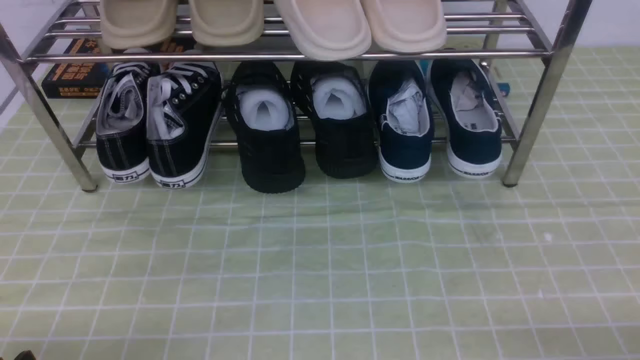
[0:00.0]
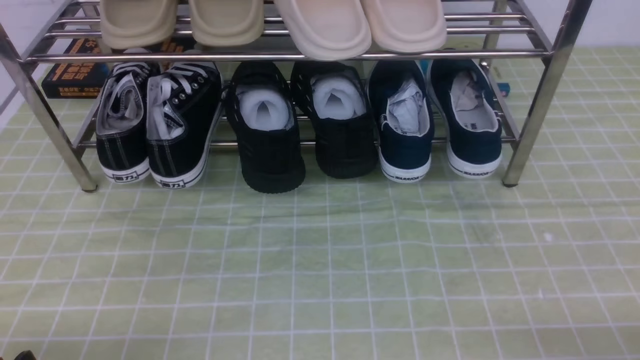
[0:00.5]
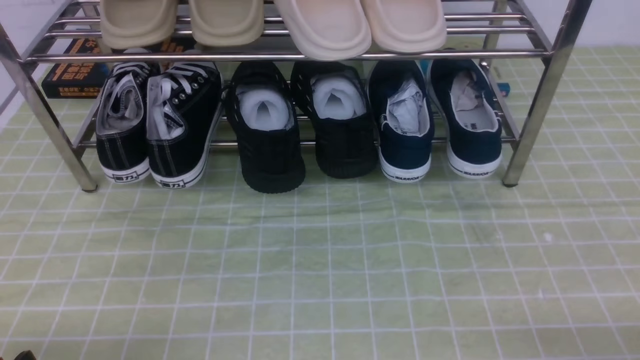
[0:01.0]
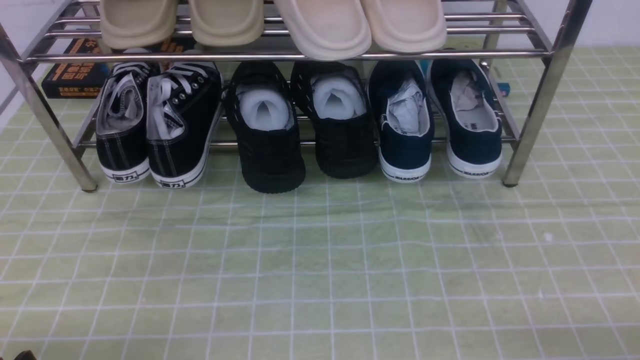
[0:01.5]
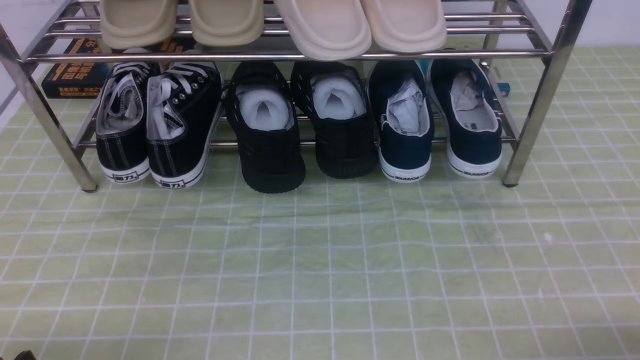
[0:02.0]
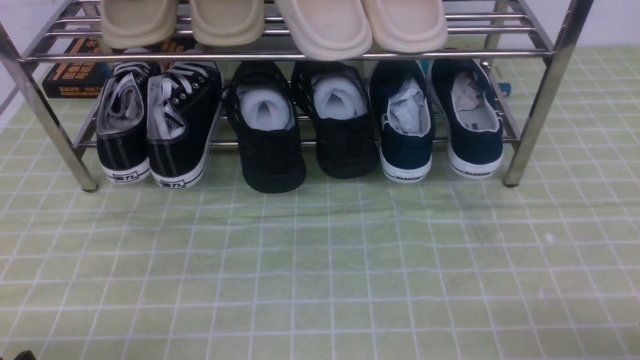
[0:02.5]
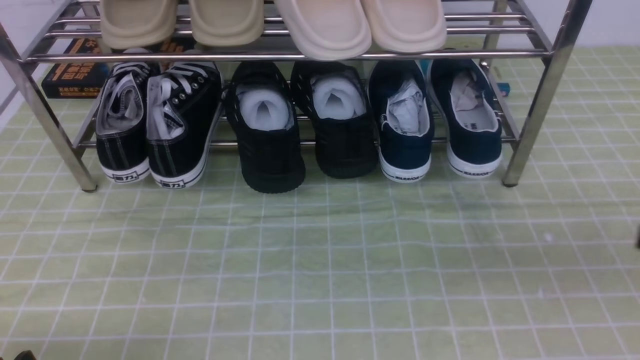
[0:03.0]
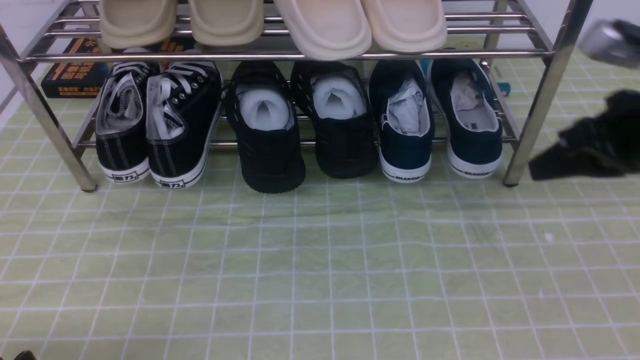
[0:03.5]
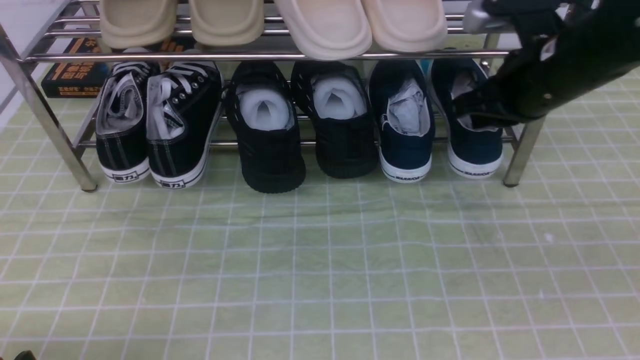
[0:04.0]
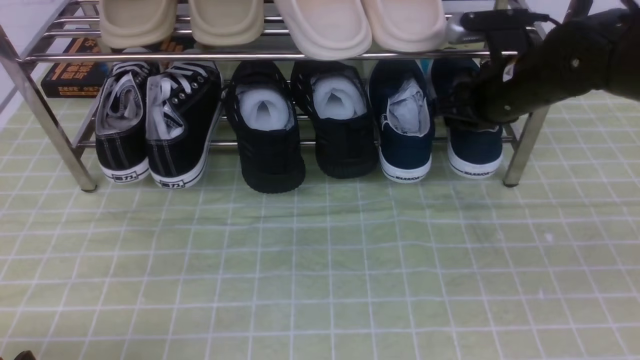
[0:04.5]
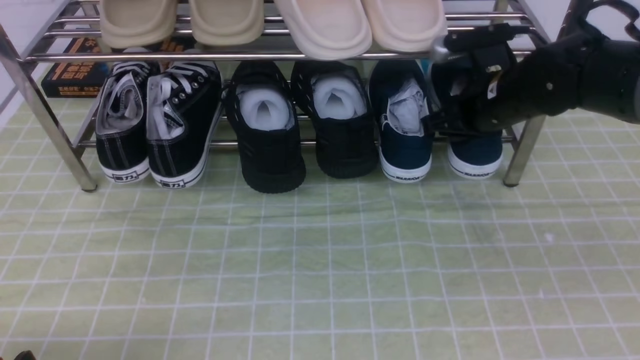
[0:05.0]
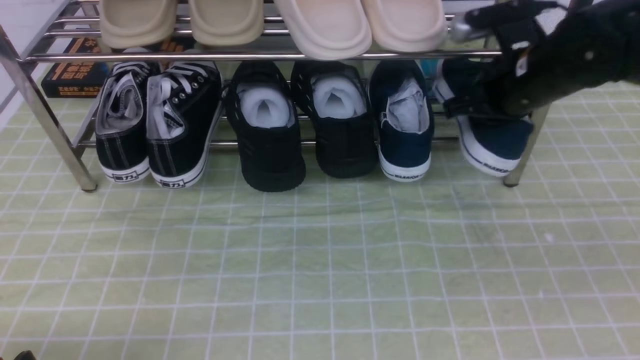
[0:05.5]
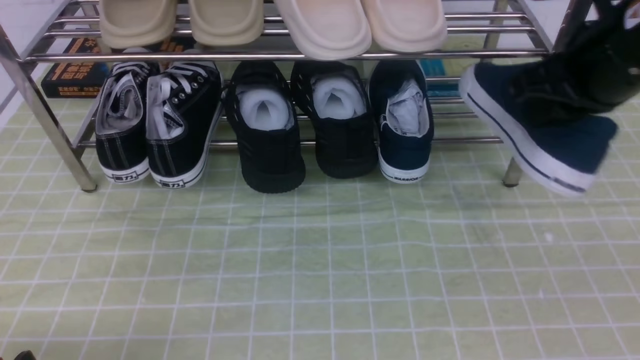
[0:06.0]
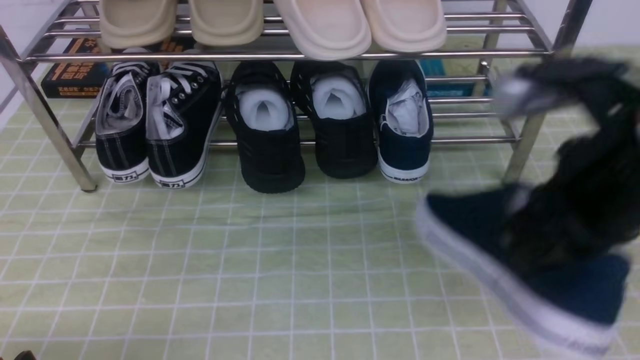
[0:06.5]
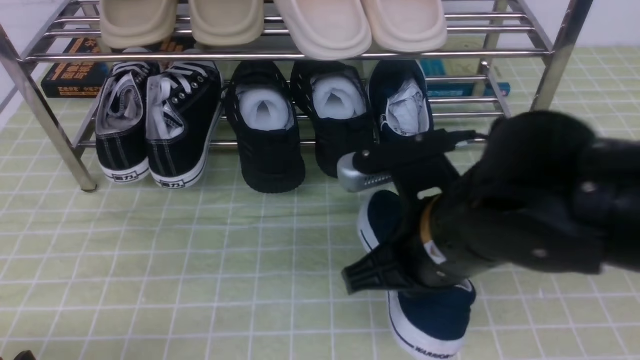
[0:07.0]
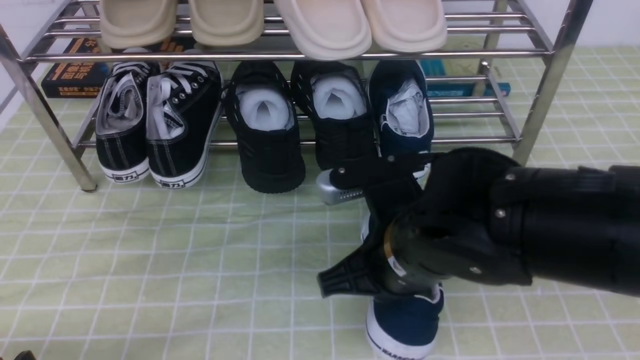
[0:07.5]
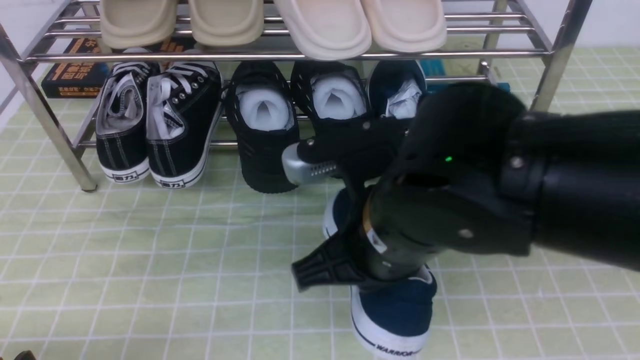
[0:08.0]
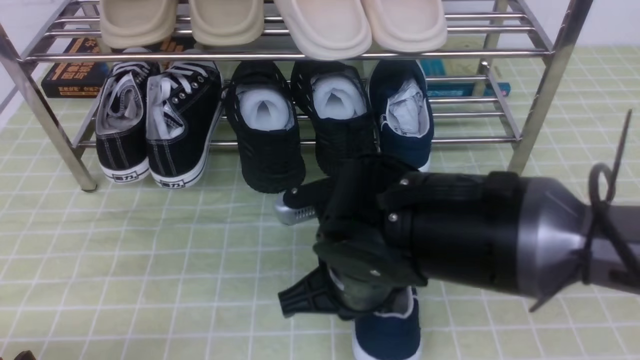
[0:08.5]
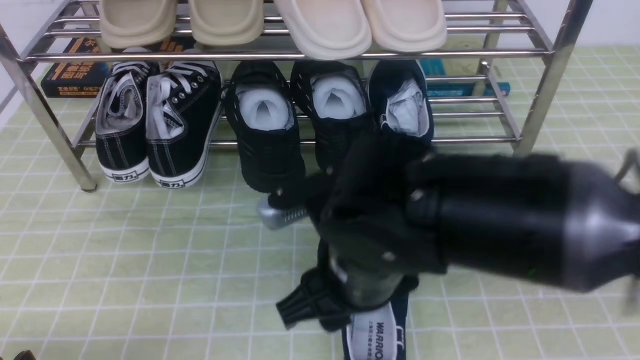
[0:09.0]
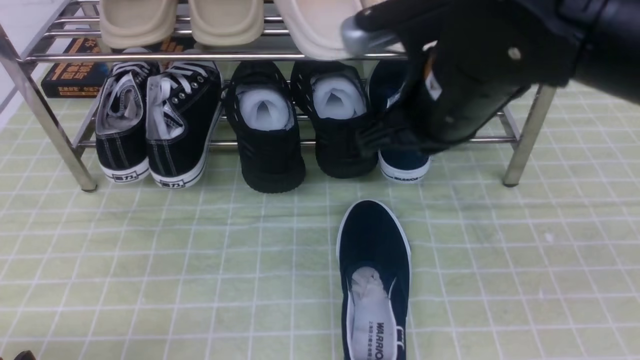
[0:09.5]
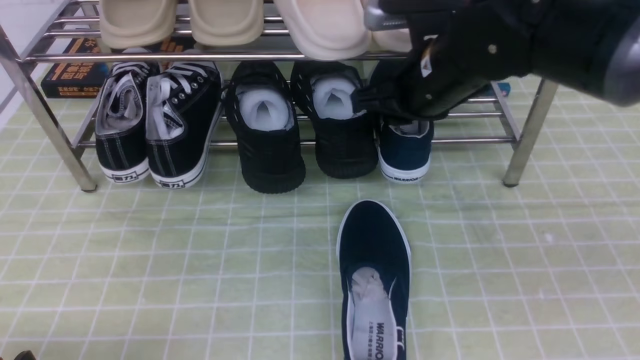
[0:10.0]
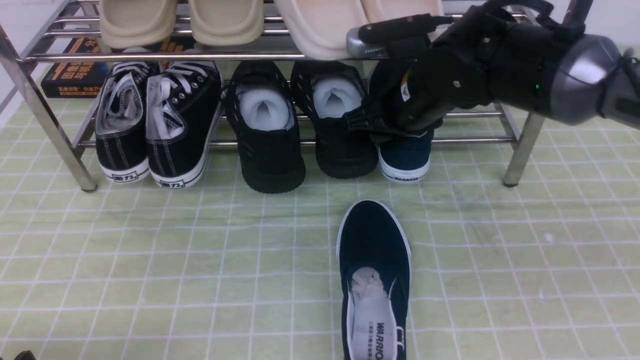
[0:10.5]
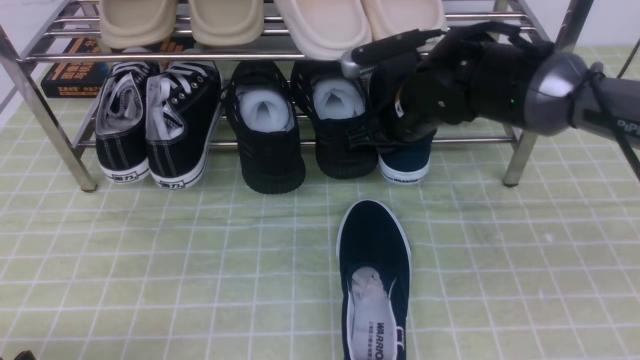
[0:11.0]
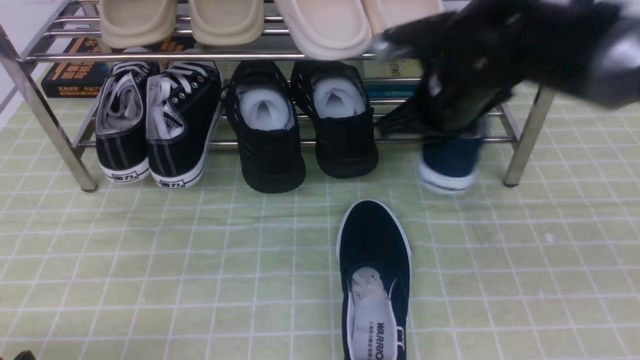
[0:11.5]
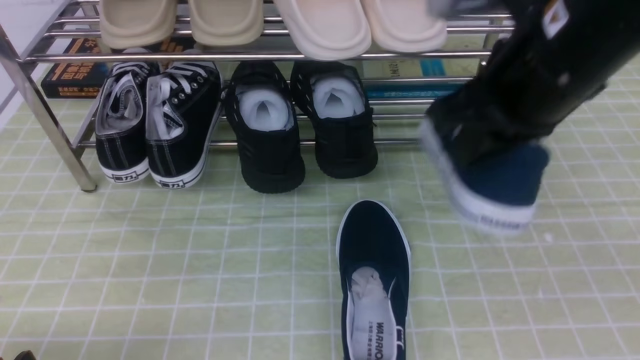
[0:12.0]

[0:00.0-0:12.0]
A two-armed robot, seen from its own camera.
Step, 0:00.0 to 0:05.0: use the right arm to clamp a shoe on the right side of the shoe rack.
Step, 0:05.5 to 0:08.5: use the right arm to take out the clamped shoe from the shoe rack and put it down.
Step, 0:09.0 to 0:11.0: use the right arm to clamp a shoe on the right side of the shoe rack.
0:02.0 to 0:04.0: The right gripper goes some 35 cm forward and upward, and closes.
0:04.0 to 0:06.0: The right gripper shifts some 10 cm backward and upward, and opens and closes again.
0:06.0 to 0:08.0: The right gripper is displaced to the left, downward and backward by roughly 20 cm.
0:08.0 to 0:10.0: The right gripper shifts some 15 cm forward, and opens.
0:10.0 to 0:12.0: The right gripper travels backward and upward by roughly 15 cm, and closes up.

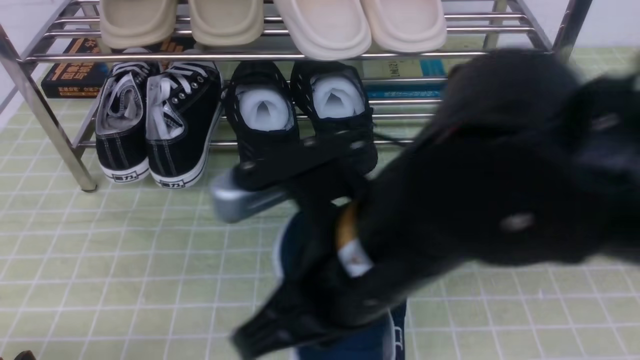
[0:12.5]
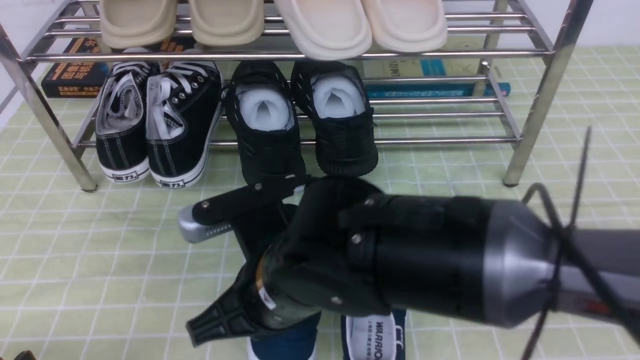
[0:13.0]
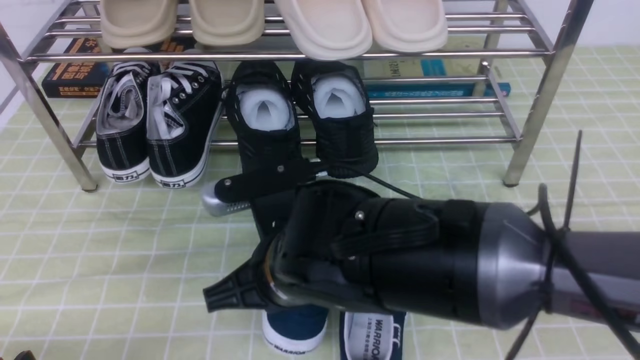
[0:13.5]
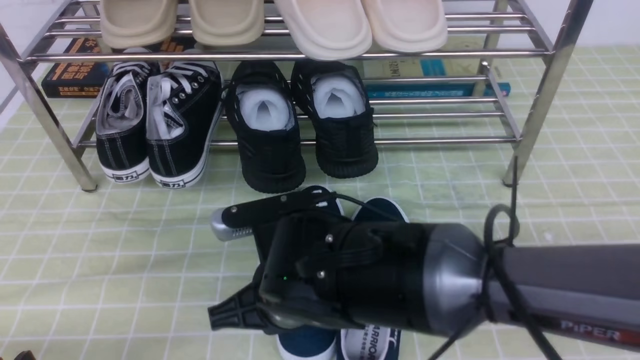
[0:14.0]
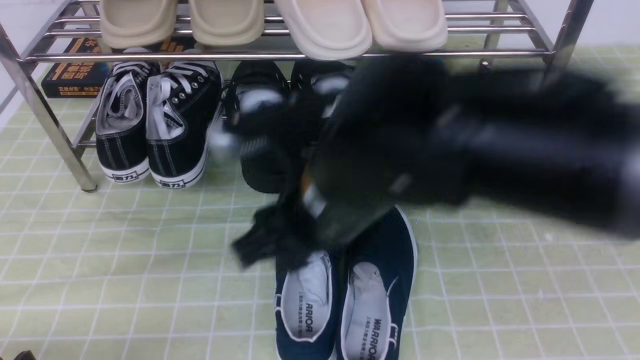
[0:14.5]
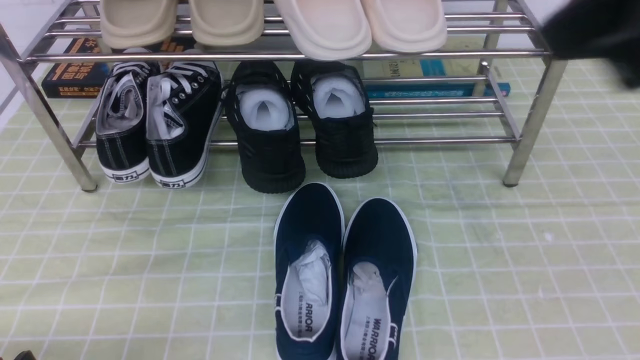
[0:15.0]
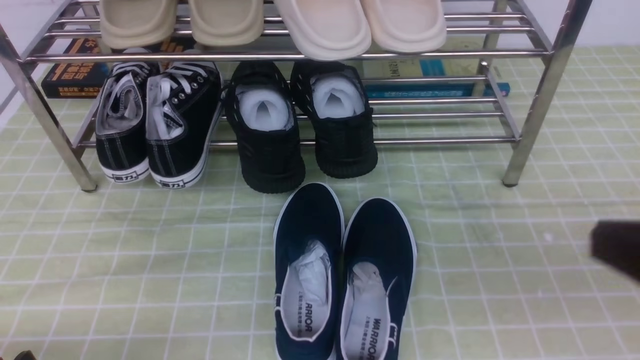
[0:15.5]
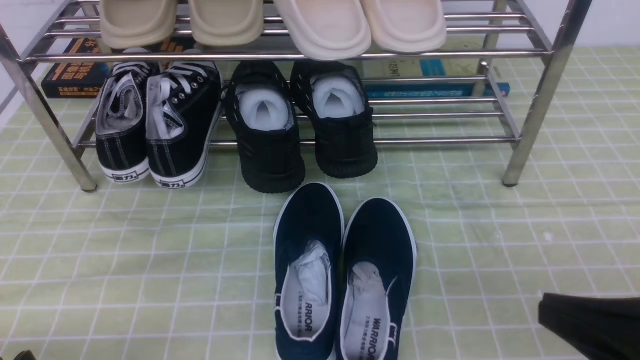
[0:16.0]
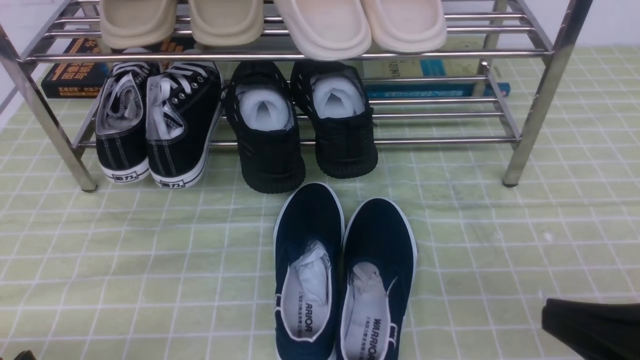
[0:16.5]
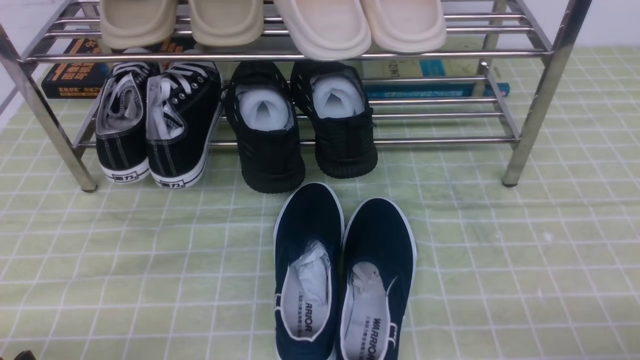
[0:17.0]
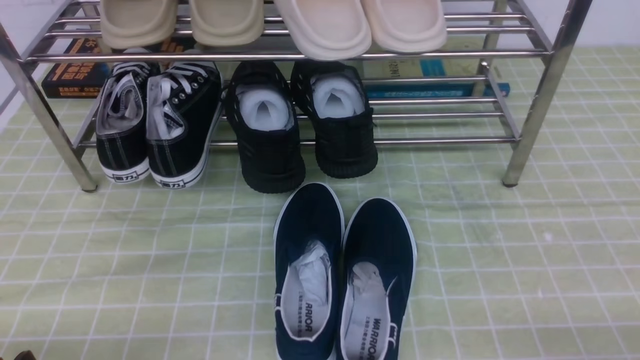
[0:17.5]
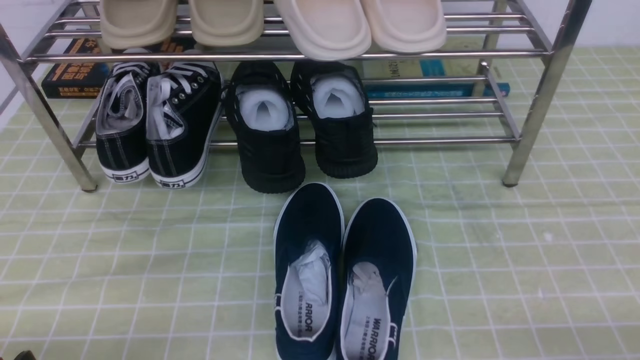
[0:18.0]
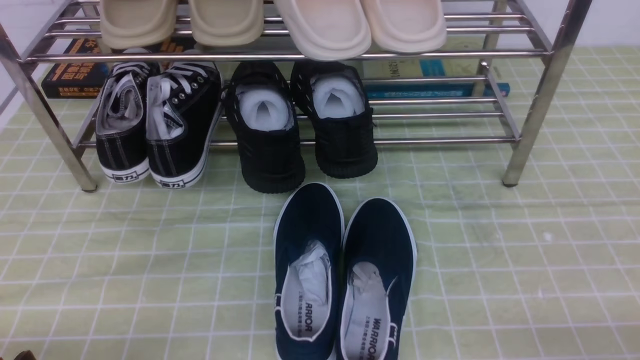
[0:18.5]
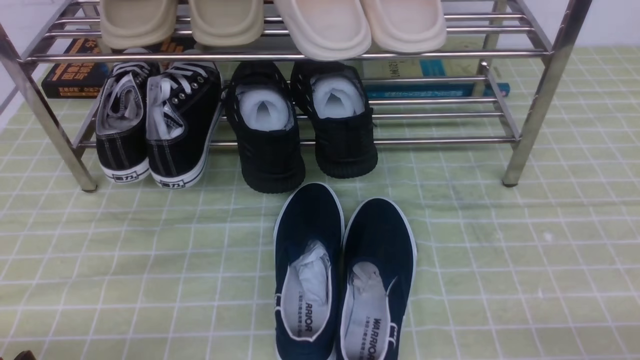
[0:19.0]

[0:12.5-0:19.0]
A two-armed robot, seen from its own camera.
Step, 0:12.5 to 0:14.5: use the right arm to take out the clamped shoe from the shoe rack and put it down.
0:12.5 to 0:14.5: The right gripper travels downward and back again, roughly 10 cm each way, and opens.
0:14.5 to 0:17.0: The right gripper heads to the right, downward and backward, covering approximately 35 cm, and closes up.

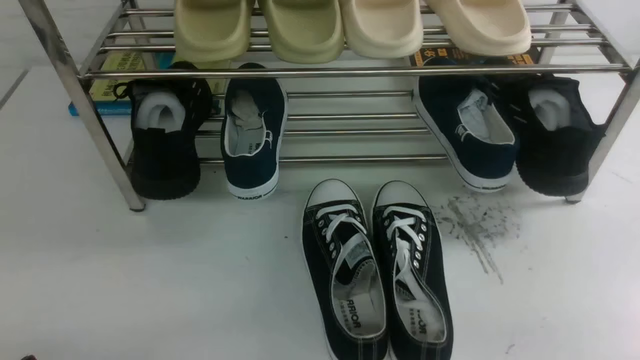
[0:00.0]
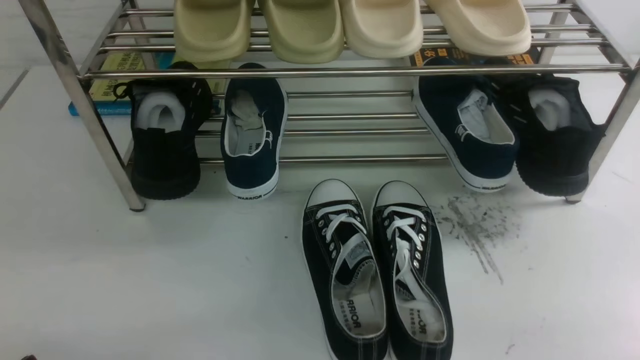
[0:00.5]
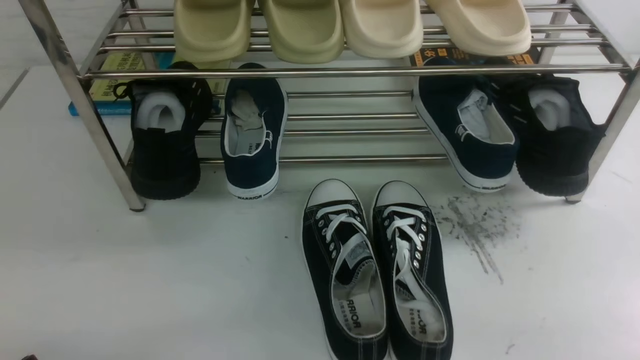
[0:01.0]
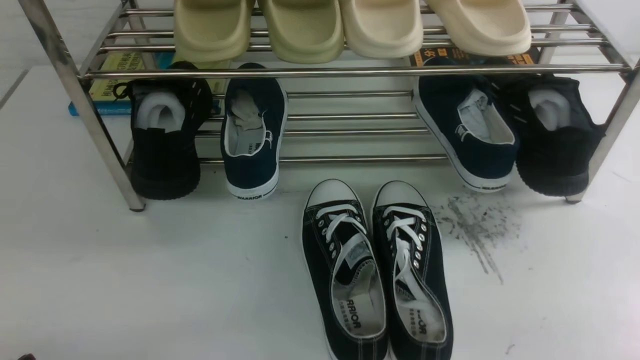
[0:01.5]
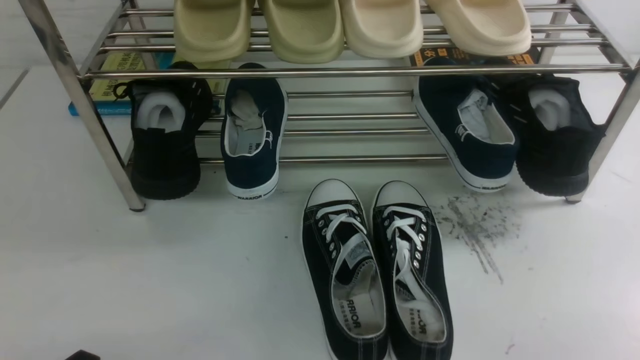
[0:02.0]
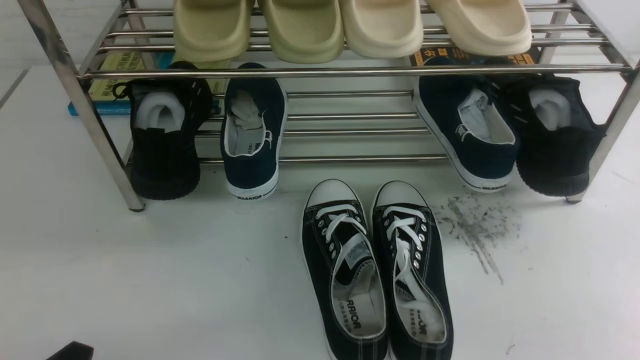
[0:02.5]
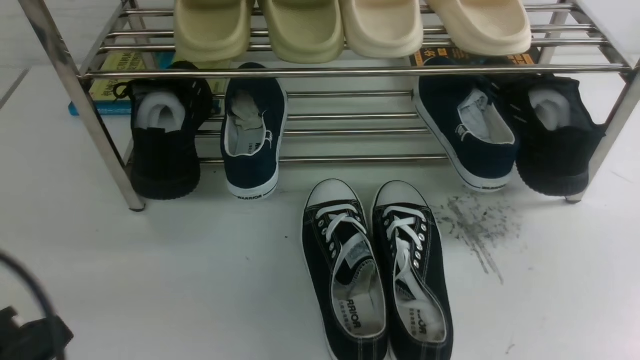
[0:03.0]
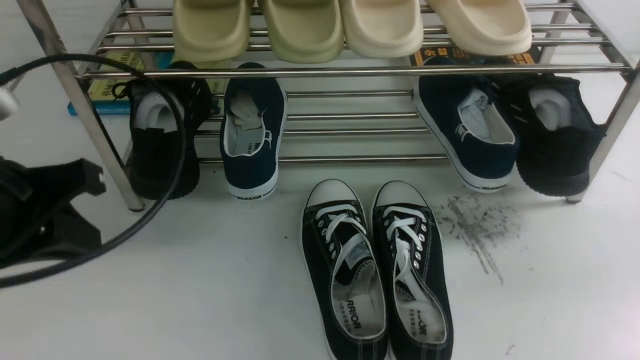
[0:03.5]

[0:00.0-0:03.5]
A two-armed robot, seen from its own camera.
0:02.0 to 0:03.5: The left gripper goes some 20 cm upward and forward.
